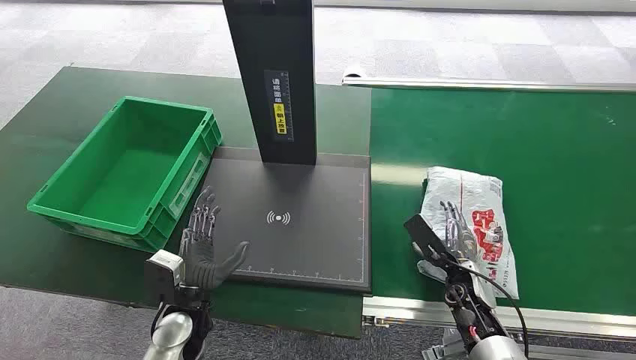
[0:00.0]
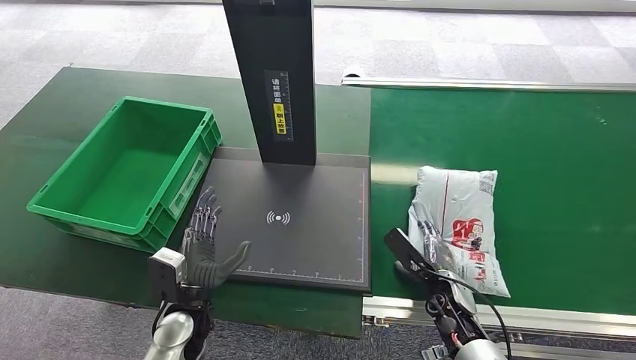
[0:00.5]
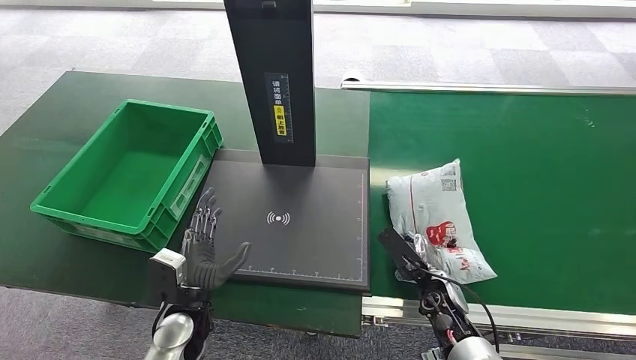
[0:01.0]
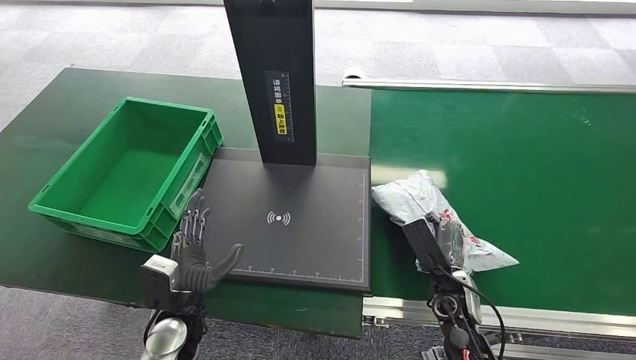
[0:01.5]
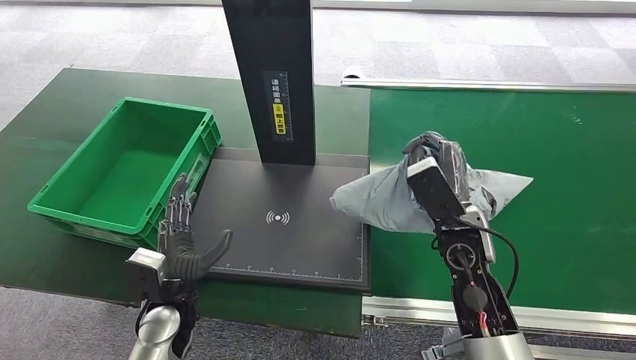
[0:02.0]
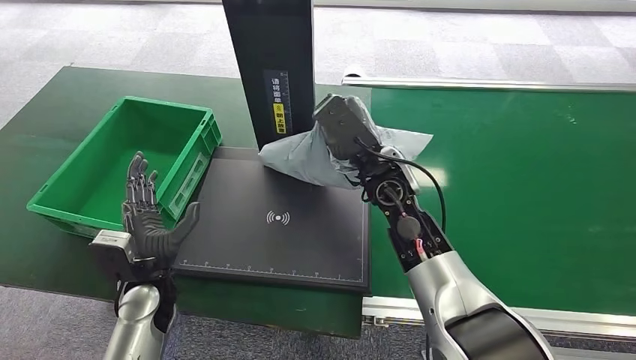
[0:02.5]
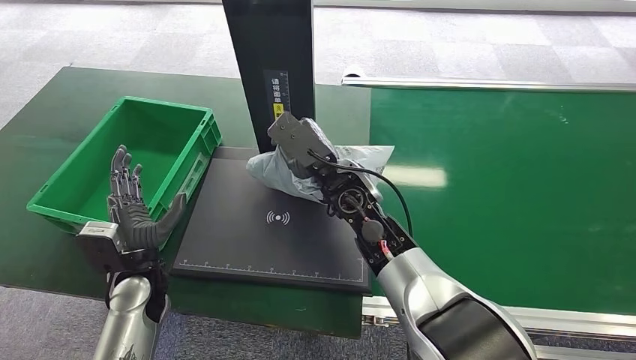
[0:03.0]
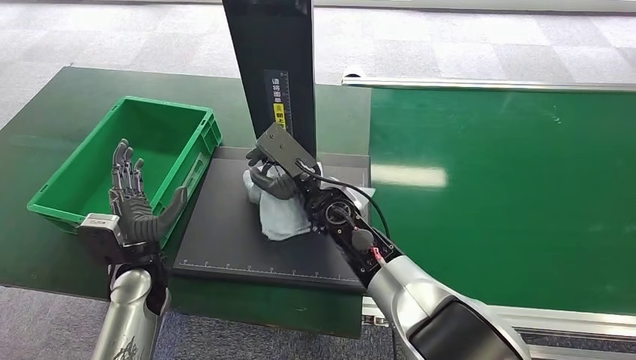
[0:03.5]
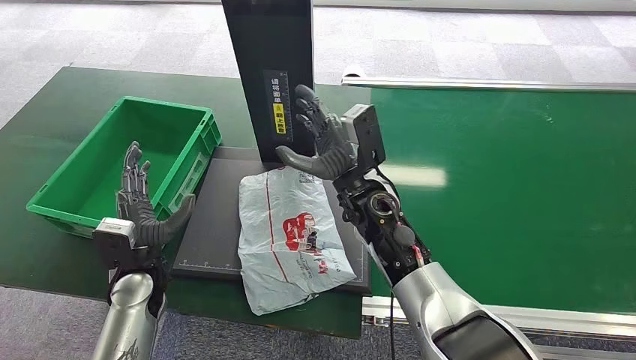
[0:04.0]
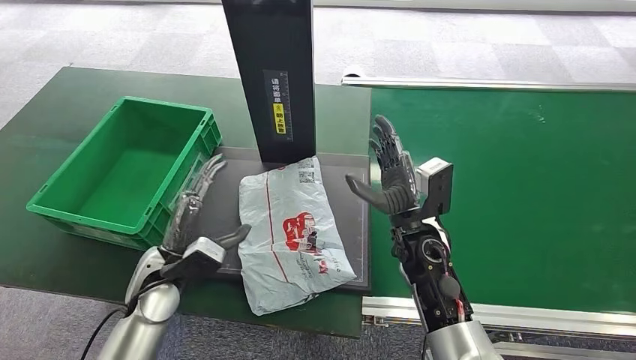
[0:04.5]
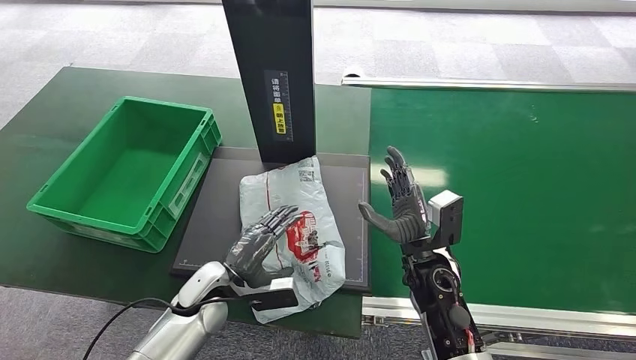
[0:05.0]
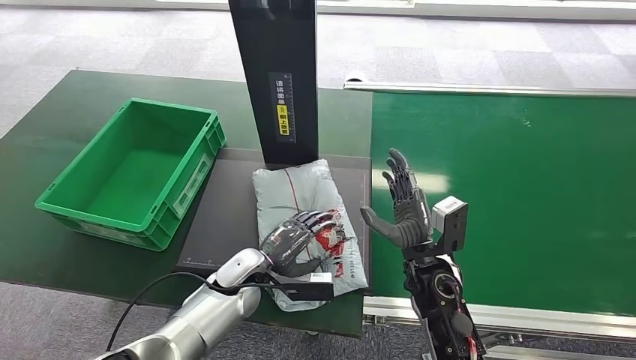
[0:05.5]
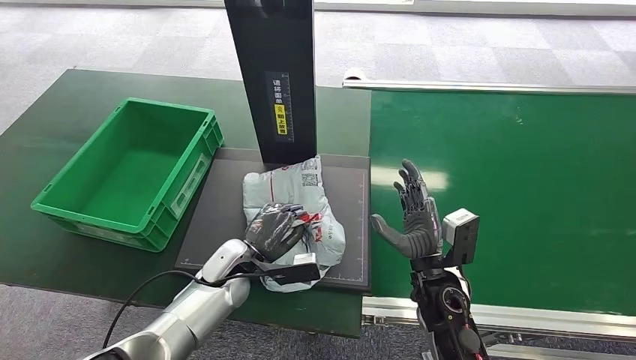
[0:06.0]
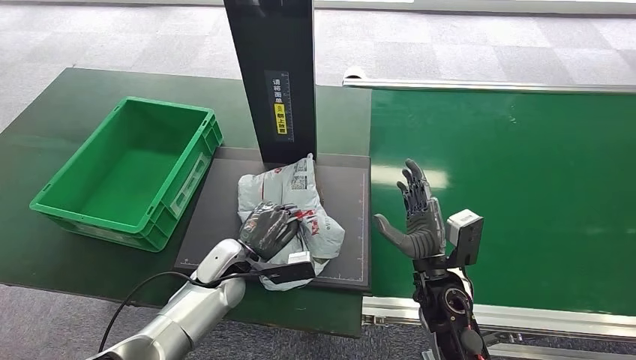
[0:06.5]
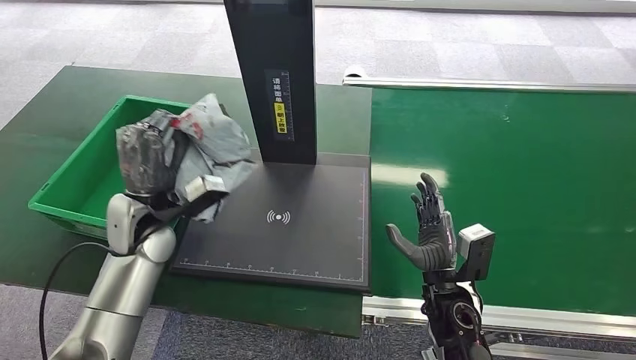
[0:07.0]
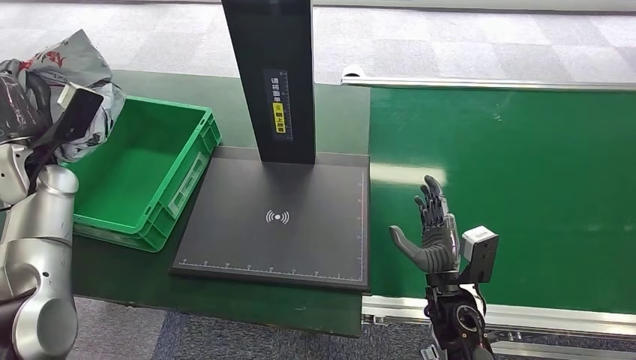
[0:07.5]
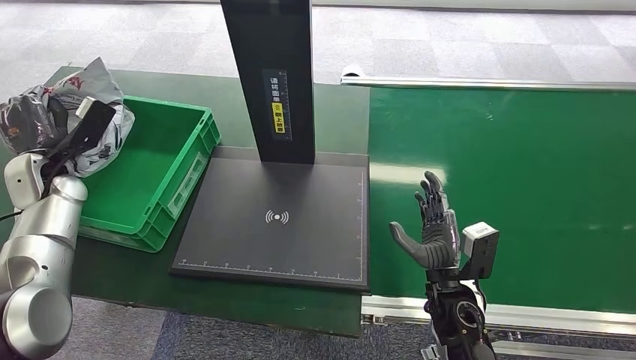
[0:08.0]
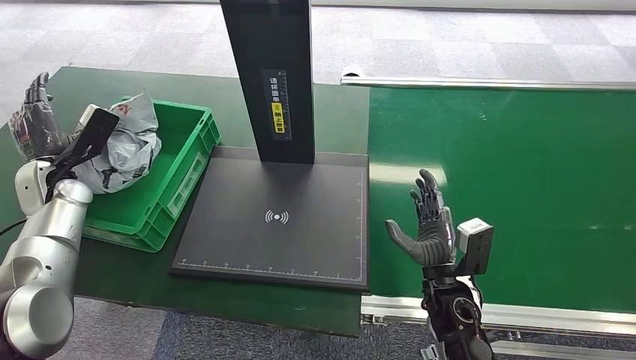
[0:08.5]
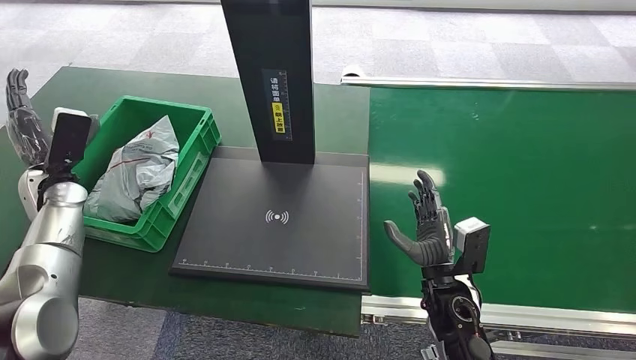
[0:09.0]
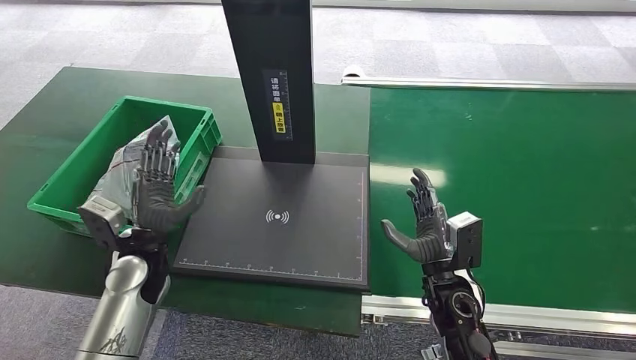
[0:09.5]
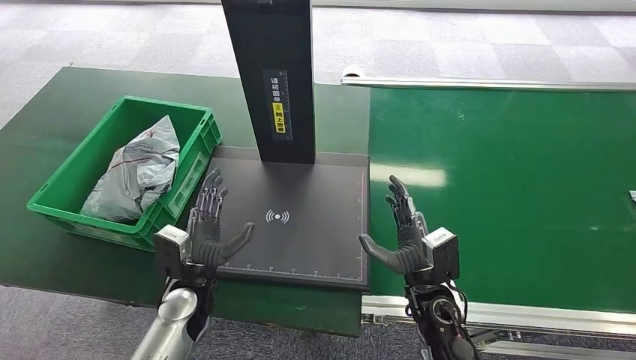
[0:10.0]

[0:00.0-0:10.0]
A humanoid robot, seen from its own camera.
Task of the whole recording: Weigh the package on the weighing device and place it in the left basket.
Step, 0:00.0 to 0:02.0: Pick up the package from the conveyor belt.
Step, 0:02.5 to 0:05.0: Place the package onto the inbound machine.
Step, 0:05.5 to 0:07.0: Pick up the package from the inbound machine.
Step, 0:07.5 to 0:10.0: Place the package into the parcel locker.
0:08.0 to 0:10.0: The left hand shifts about 35 cm to the right, downward and backward.
